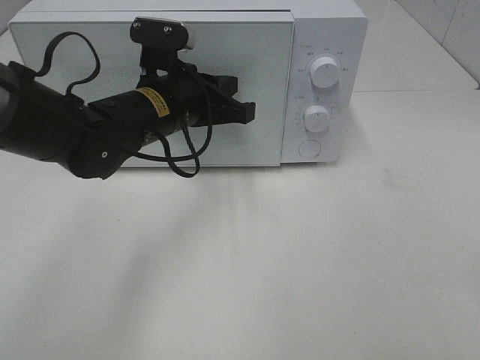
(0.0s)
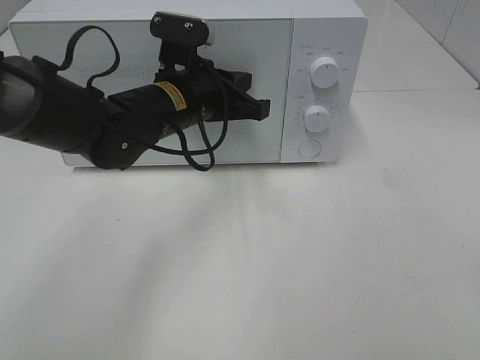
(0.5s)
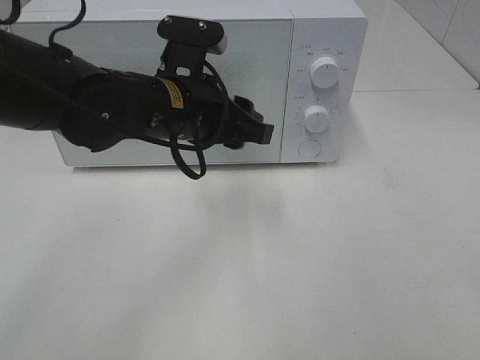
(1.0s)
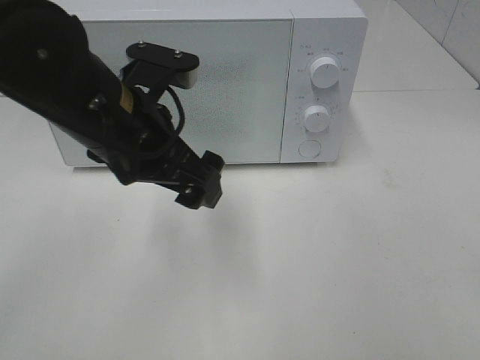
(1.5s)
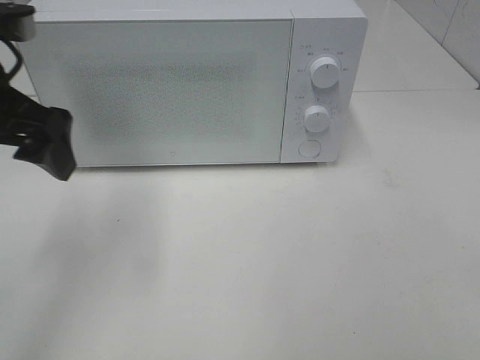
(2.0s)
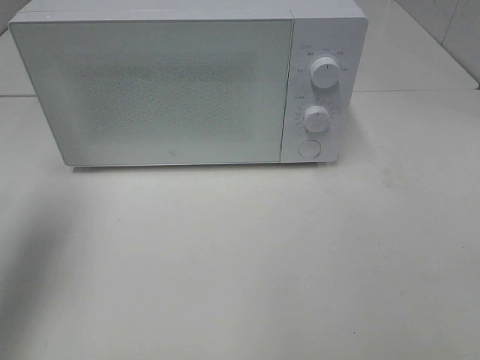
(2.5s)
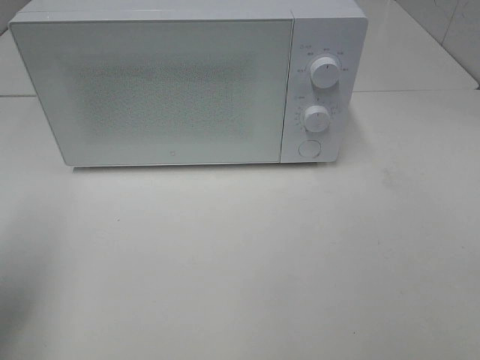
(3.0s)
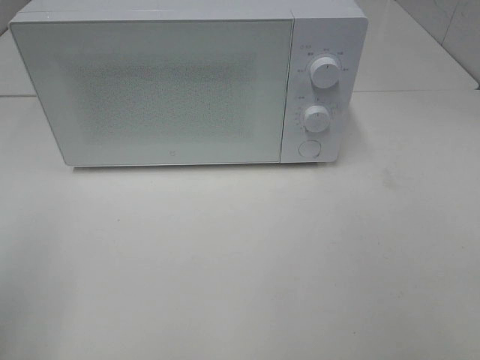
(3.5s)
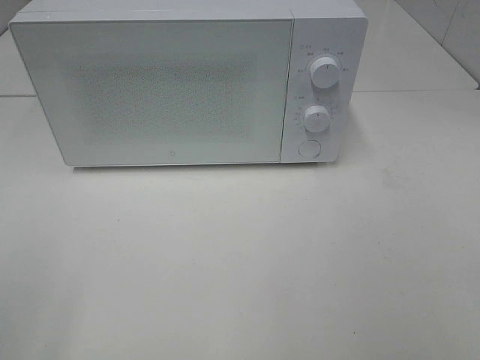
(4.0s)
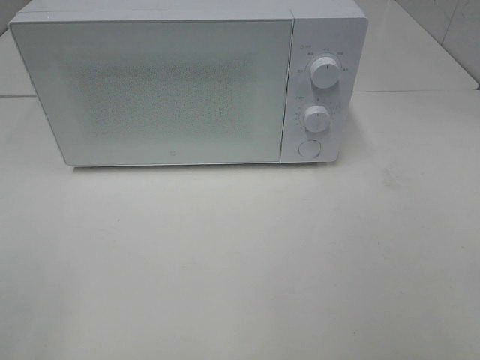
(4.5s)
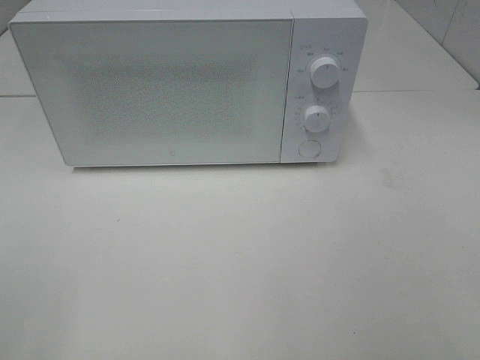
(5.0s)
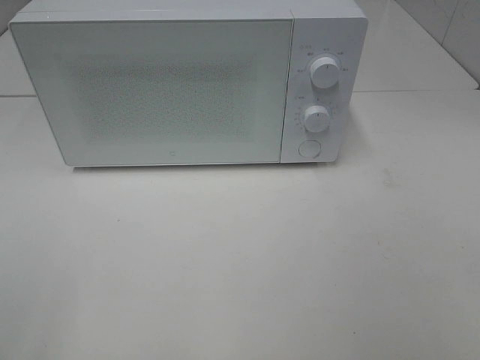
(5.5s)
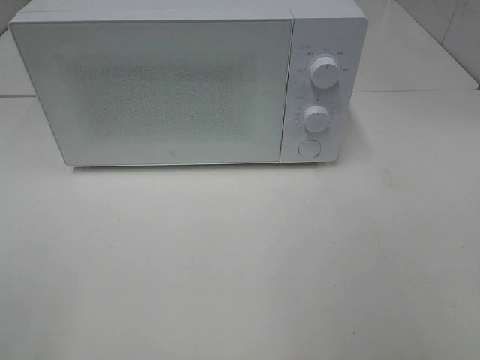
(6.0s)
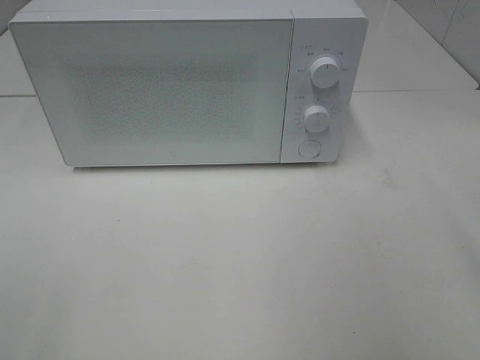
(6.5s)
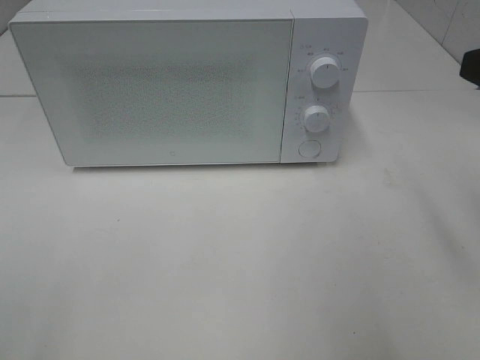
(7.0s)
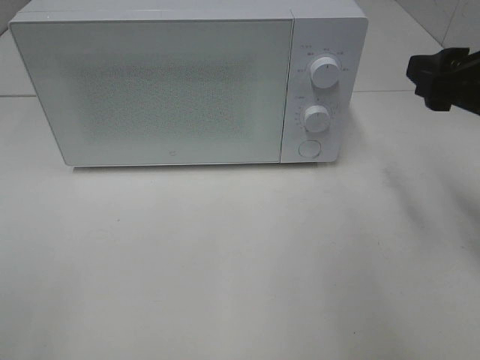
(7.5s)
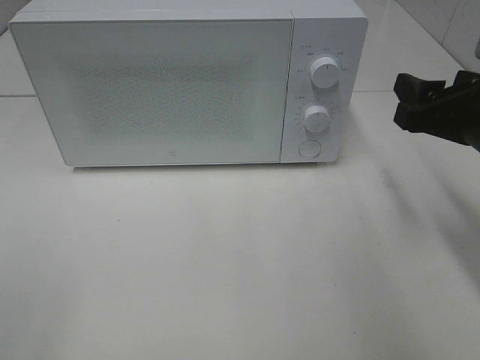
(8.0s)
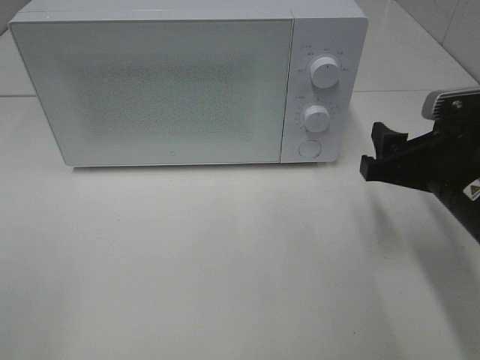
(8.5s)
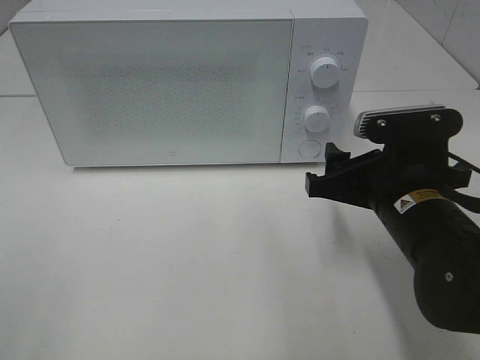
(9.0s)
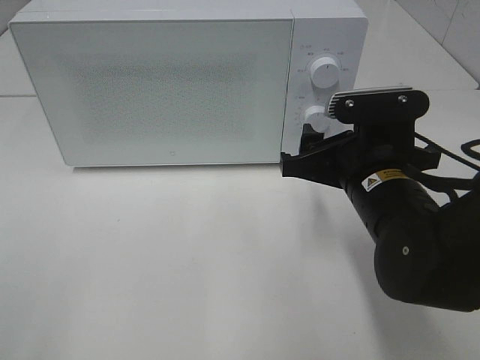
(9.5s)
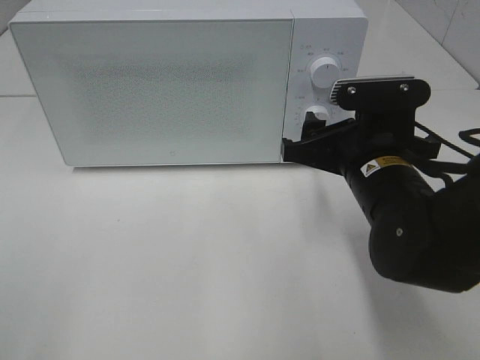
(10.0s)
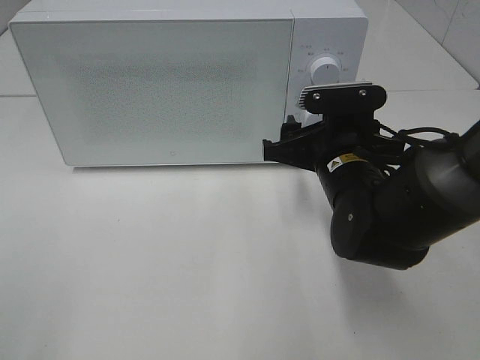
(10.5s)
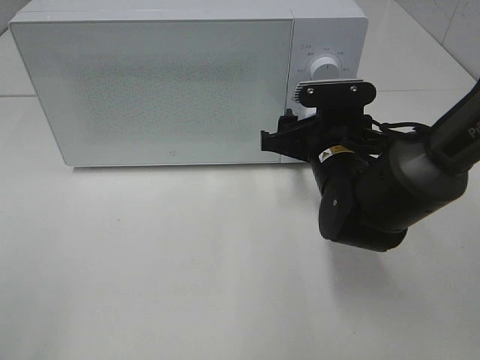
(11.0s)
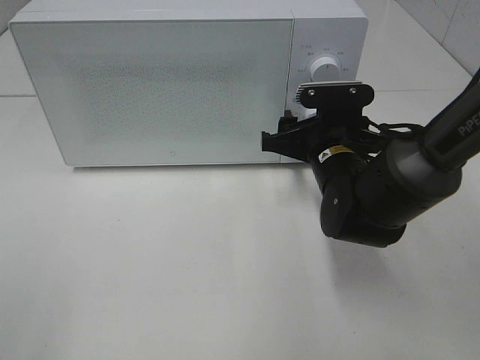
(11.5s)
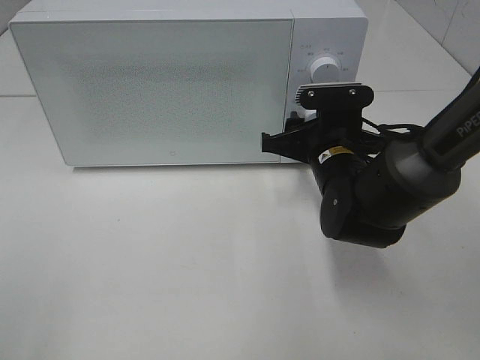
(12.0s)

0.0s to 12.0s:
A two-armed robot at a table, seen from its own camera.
Task of the whole recording: Heat the burger.
0.0s to 2.0s: The left gripper goes some 20 cm to the left, upward and backward, and opens its fingers.
2.0s to 4.0s: The left gripper moves backward, about 25 cm.
6.0s to 8.0s: The right gripper goes approximately 20 cm forward and downward.
8.0s to 10.0s: The right gripper heads to the left, covering roughly 10 cm.
10.0s to 12.0s: The right gripper goes approximately 5 cm forward.

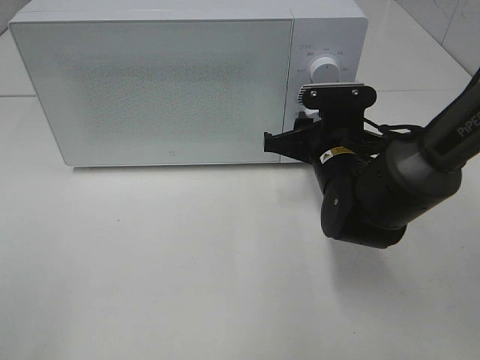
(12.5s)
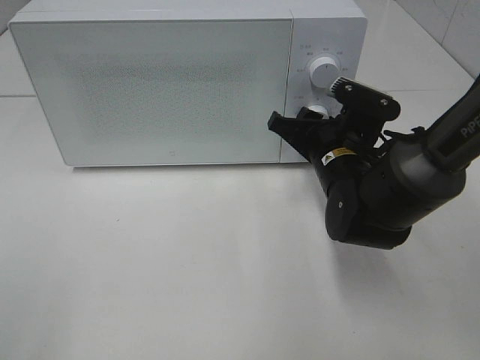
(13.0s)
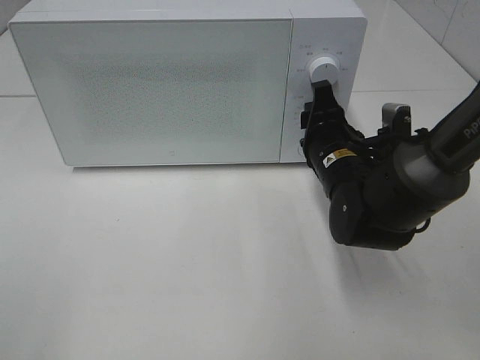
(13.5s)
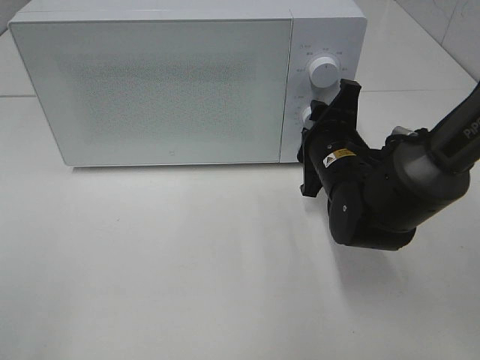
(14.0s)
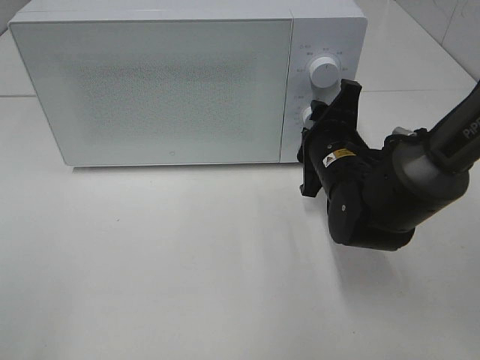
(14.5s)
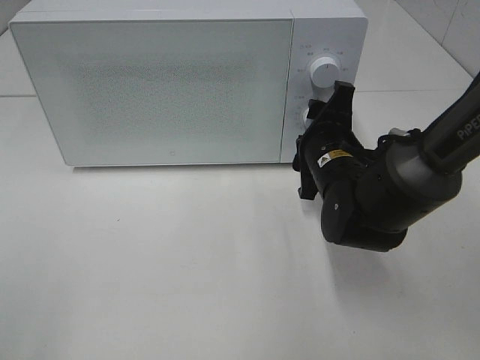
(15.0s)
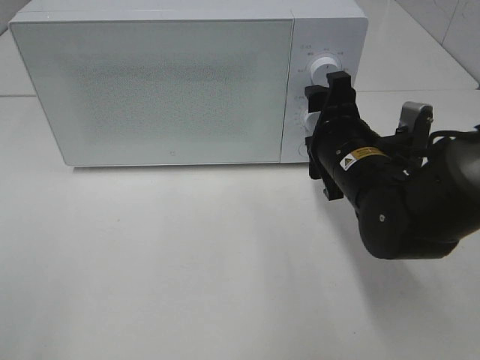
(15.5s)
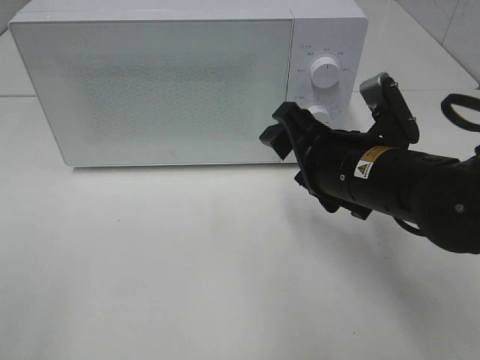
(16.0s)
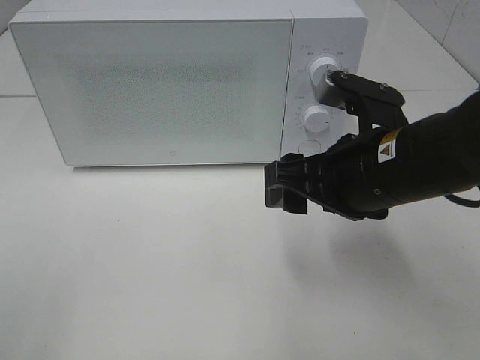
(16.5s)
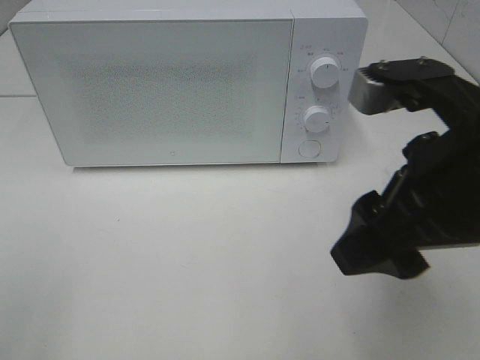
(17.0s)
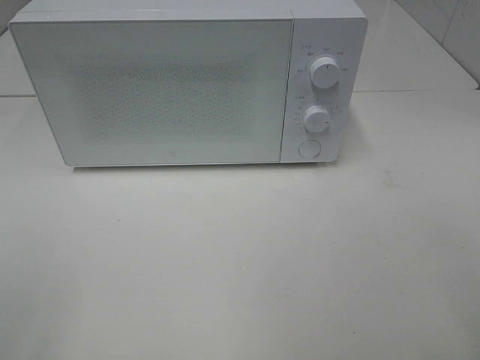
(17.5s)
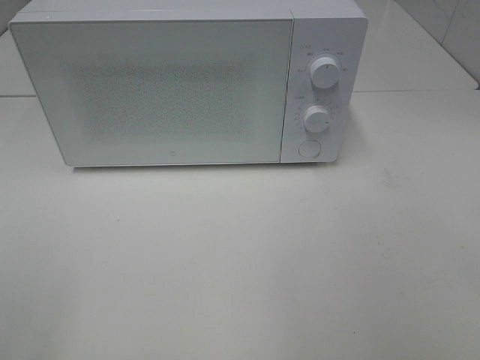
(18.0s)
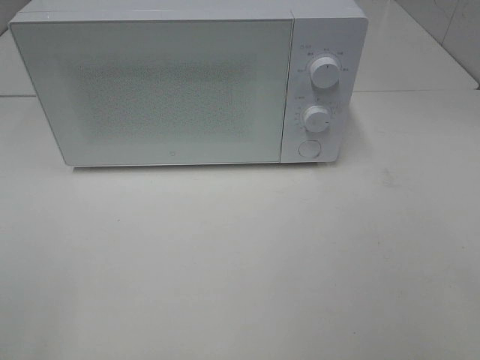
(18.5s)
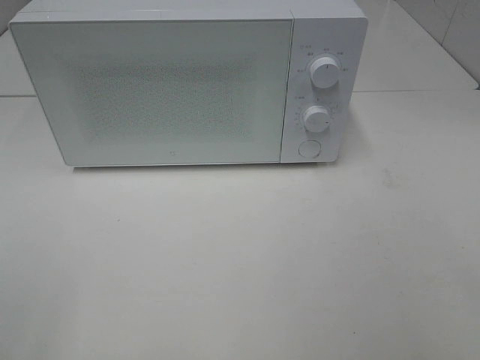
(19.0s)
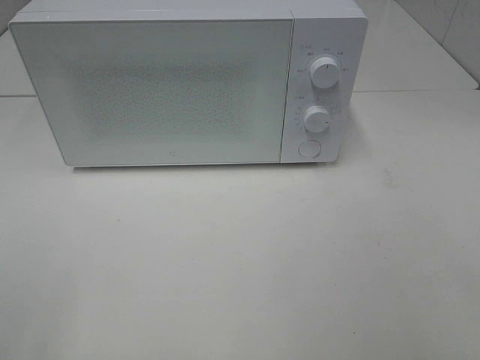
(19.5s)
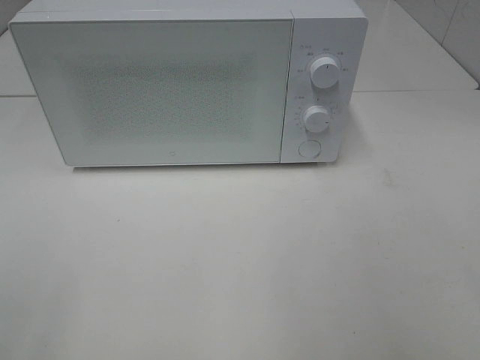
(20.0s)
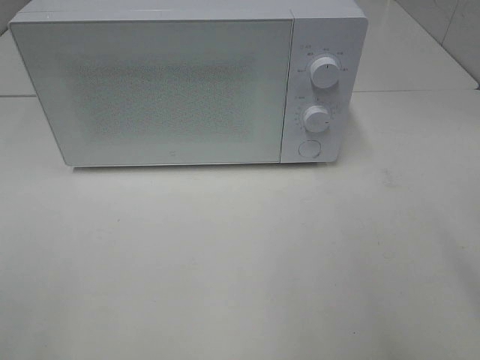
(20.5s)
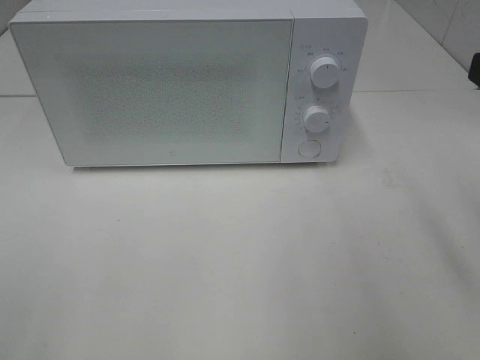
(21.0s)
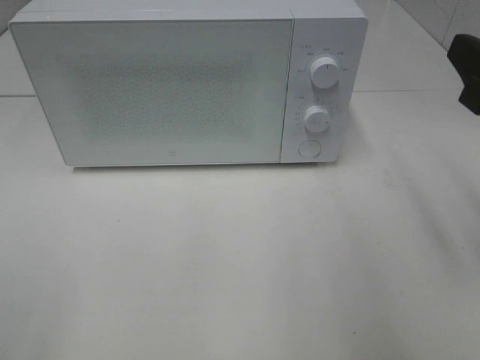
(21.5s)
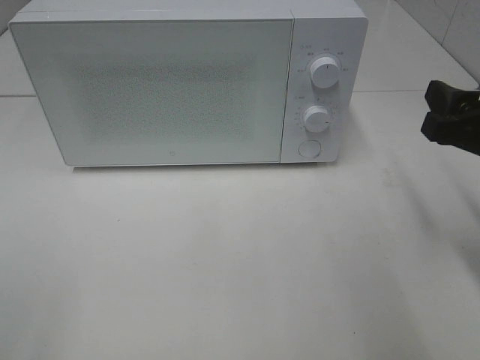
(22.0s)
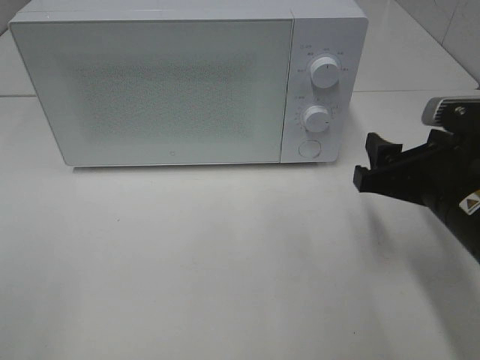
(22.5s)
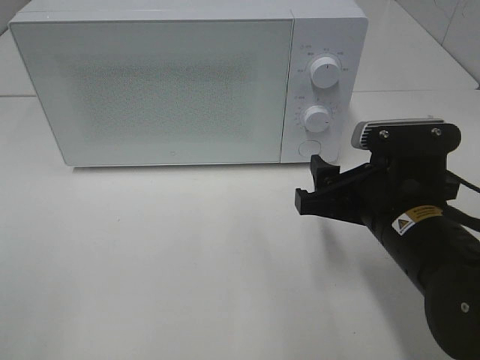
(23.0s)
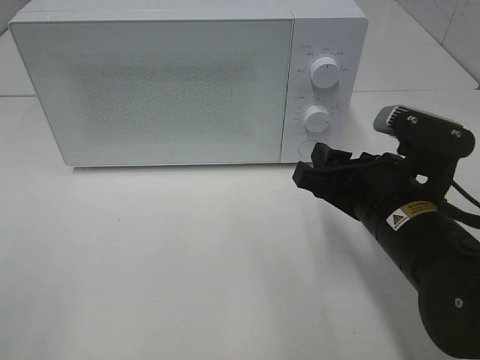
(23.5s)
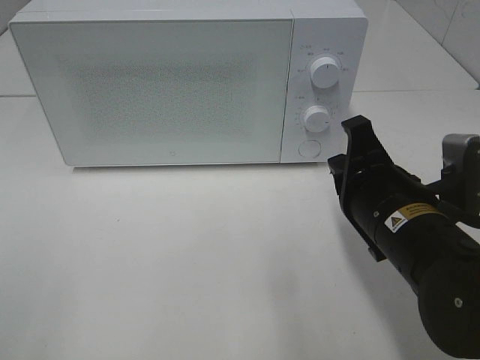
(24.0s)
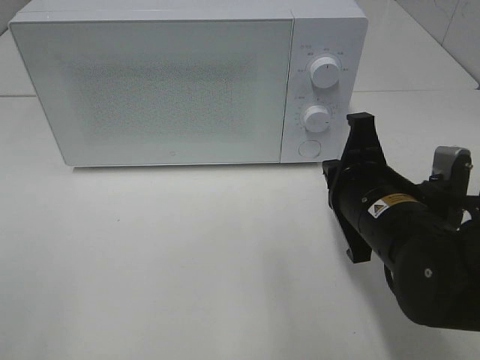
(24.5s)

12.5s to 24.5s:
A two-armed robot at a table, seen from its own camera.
Task of the whole recording: Heat the burger.
Step, 12.5s to 15.0s: Right hand: twist timer button.
14.5s to 16.5s: The right gripper is displaced backward and upward by about 15 cm.
16.5s to 18.5s: The right gripper moves backward and to the right, about 30 cm.
20.5s to 22.5s: The right gripper shifts about 20 cm downward and forward.
22.5s to 24.5s: The right gripper goes approximately 5 cm to the left, and closes its fingers.

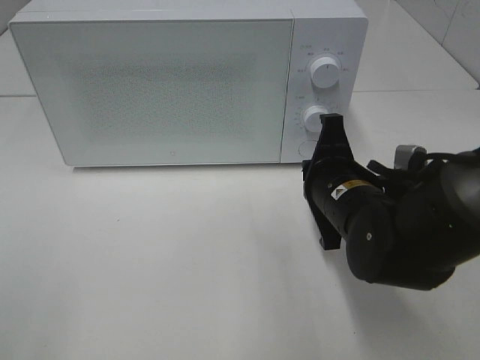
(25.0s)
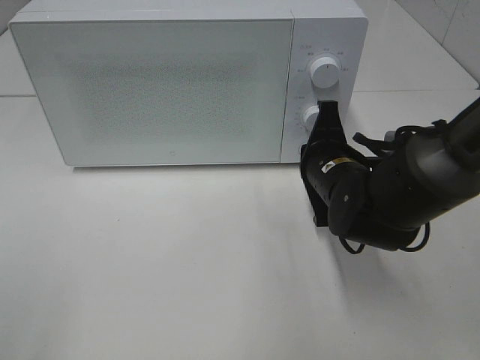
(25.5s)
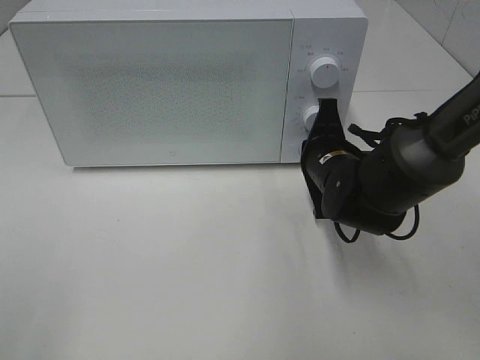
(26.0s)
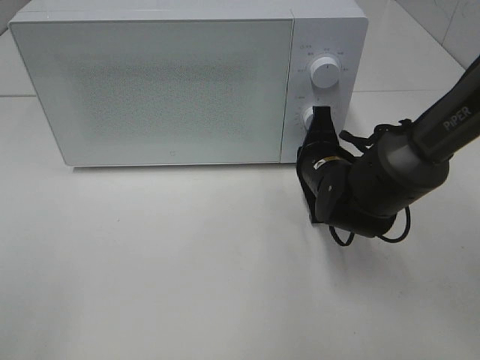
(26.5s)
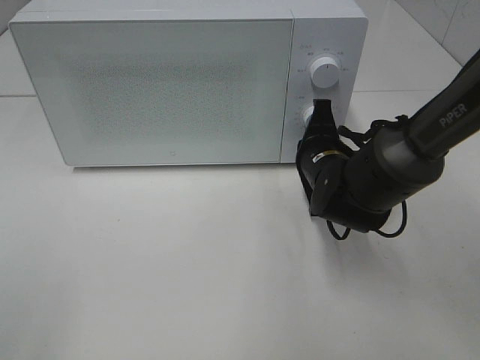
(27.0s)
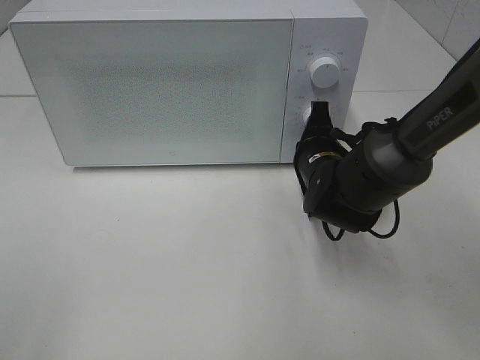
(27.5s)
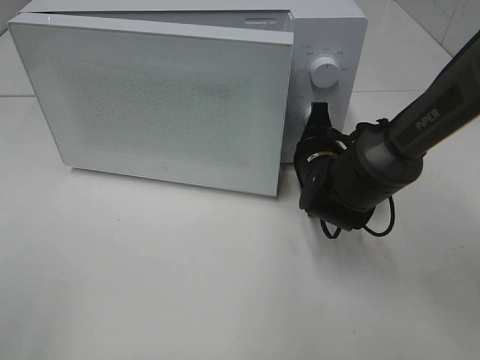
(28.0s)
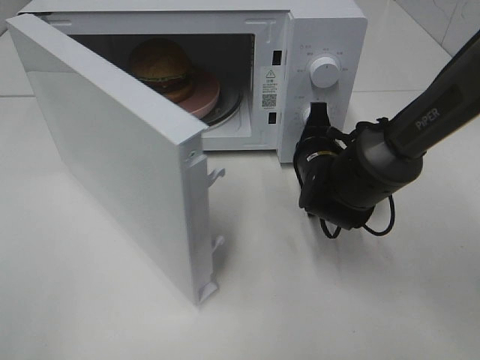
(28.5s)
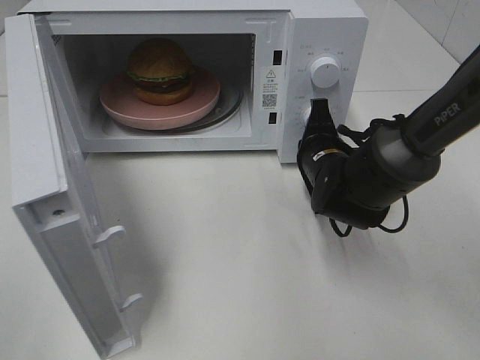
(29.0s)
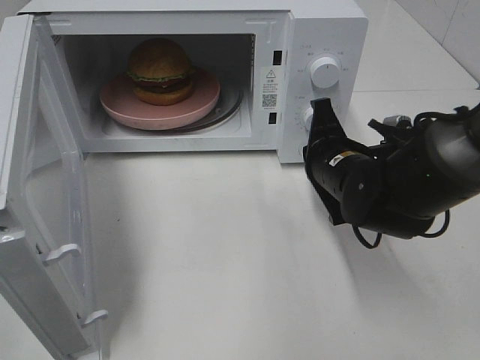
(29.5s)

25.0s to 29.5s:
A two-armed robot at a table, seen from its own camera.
Task of the whole recording: Heat the burger.
Step, 25.0s to 29.0s: Right hand: press the switch.
25.0s to 27.0s: The right gripper travels forward by some 10 cm.
